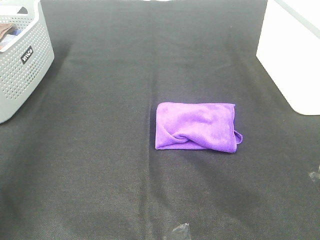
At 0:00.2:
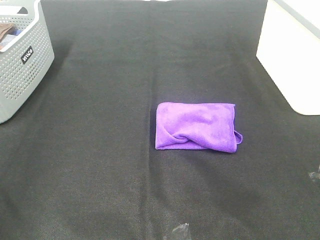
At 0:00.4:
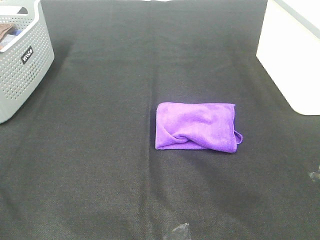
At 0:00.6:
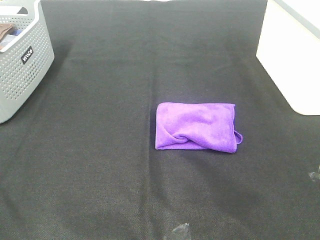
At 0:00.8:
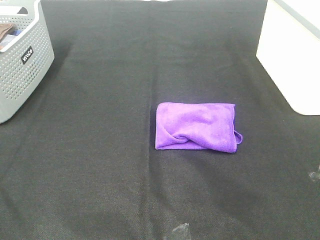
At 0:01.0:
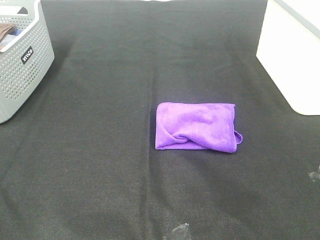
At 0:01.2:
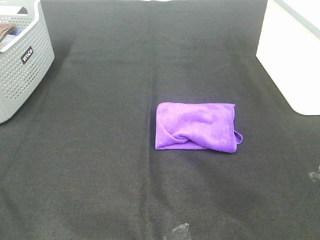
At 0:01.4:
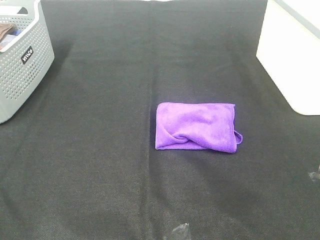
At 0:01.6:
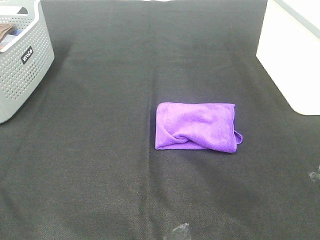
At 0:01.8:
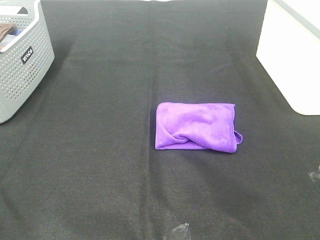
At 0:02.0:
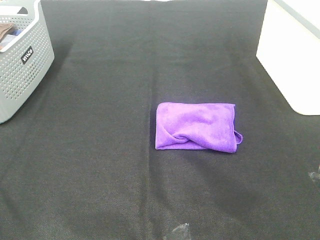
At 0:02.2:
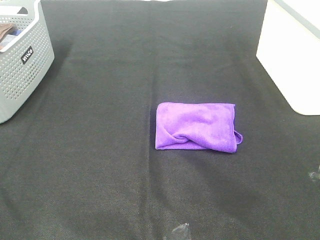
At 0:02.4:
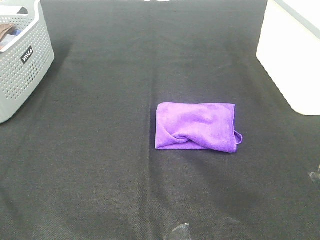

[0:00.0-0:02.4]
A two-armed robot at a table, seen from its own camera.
Task of the whole recording: Fold towels.
0:01.2 to 0:02.4: Neither gripper changes place.

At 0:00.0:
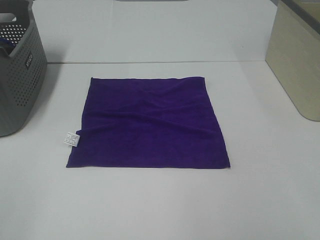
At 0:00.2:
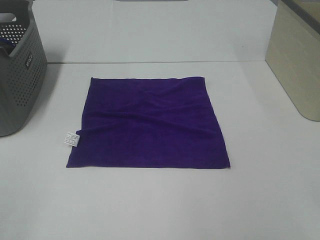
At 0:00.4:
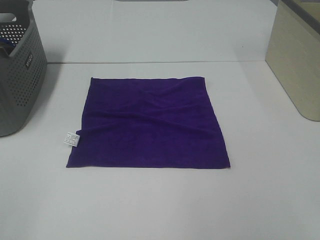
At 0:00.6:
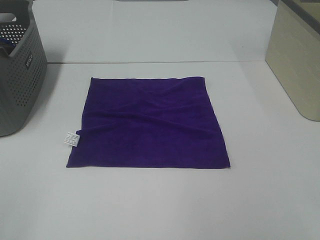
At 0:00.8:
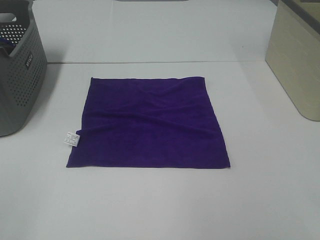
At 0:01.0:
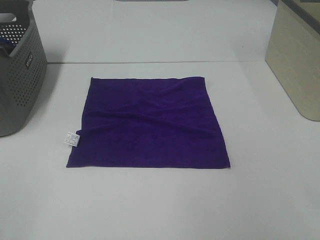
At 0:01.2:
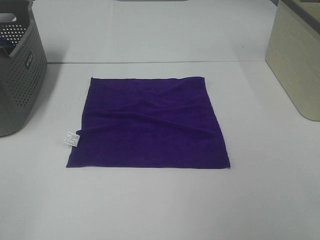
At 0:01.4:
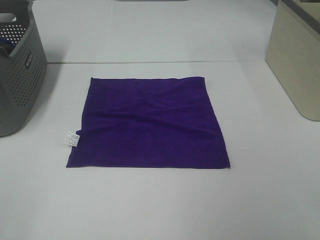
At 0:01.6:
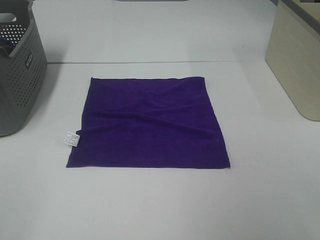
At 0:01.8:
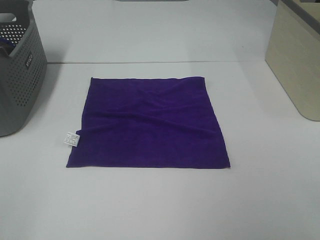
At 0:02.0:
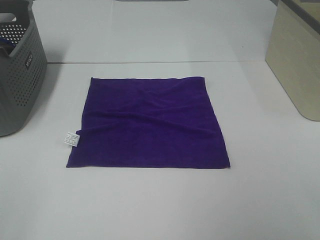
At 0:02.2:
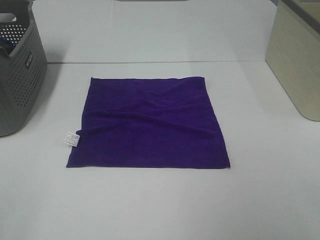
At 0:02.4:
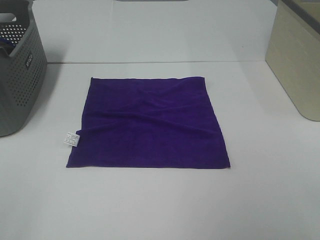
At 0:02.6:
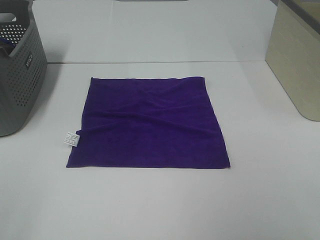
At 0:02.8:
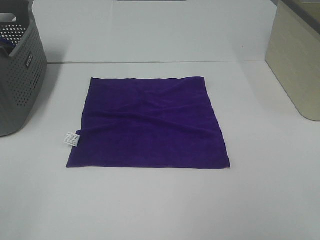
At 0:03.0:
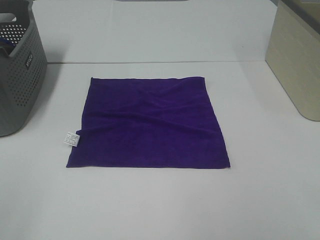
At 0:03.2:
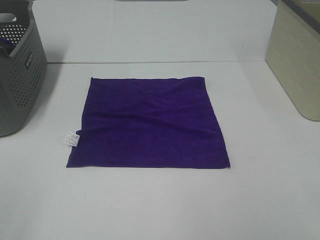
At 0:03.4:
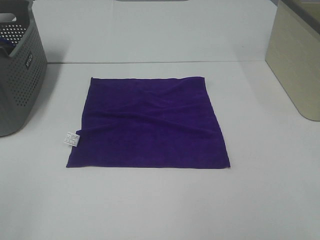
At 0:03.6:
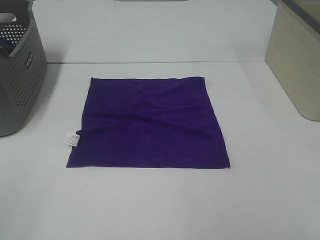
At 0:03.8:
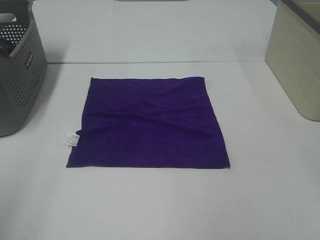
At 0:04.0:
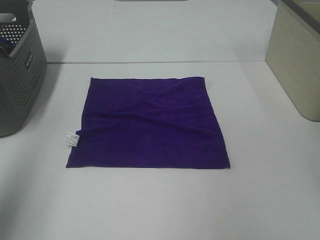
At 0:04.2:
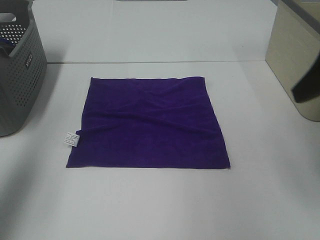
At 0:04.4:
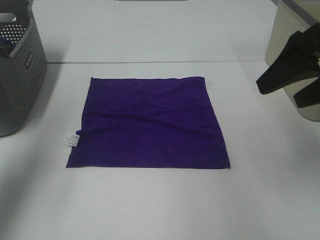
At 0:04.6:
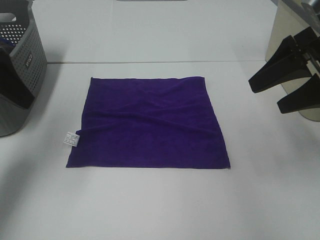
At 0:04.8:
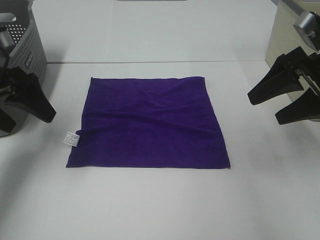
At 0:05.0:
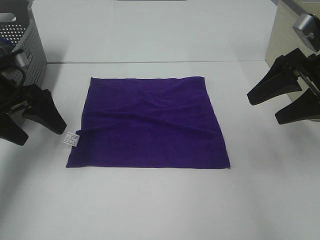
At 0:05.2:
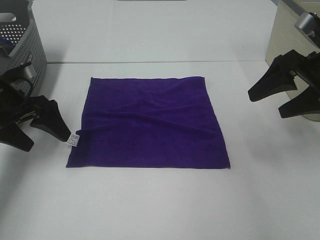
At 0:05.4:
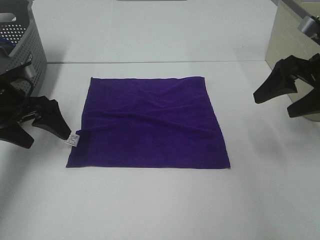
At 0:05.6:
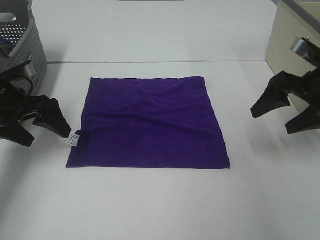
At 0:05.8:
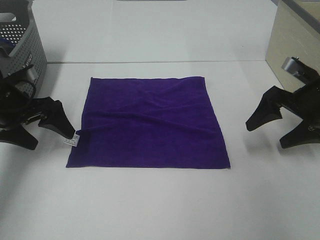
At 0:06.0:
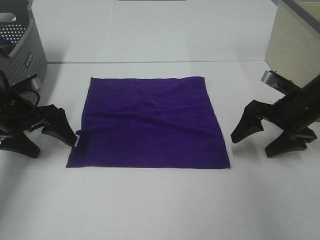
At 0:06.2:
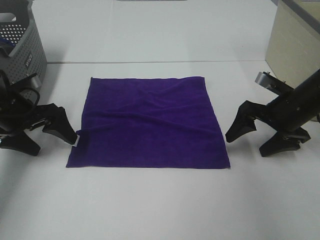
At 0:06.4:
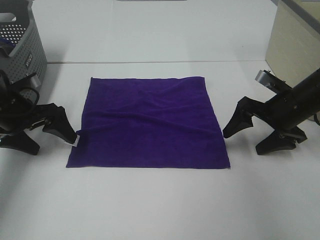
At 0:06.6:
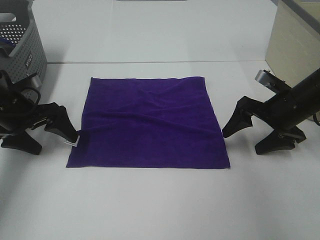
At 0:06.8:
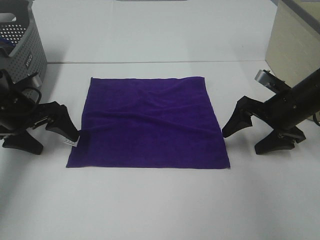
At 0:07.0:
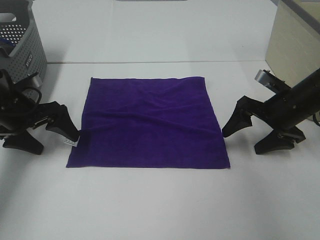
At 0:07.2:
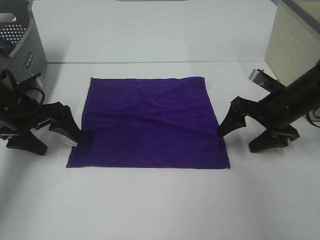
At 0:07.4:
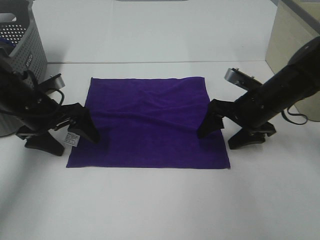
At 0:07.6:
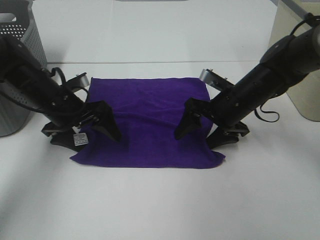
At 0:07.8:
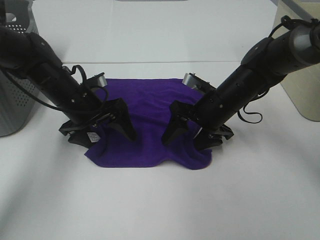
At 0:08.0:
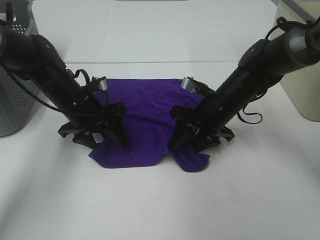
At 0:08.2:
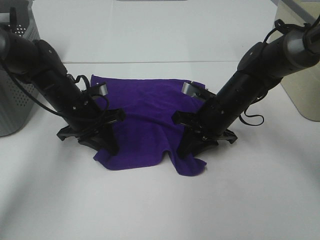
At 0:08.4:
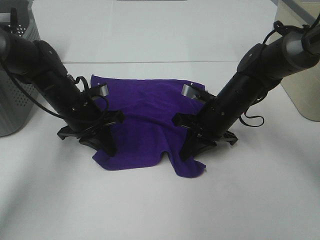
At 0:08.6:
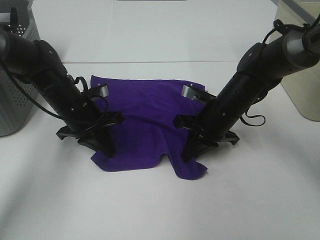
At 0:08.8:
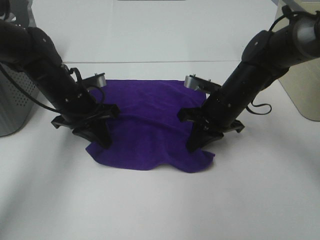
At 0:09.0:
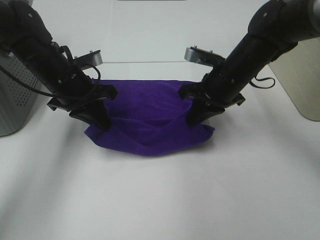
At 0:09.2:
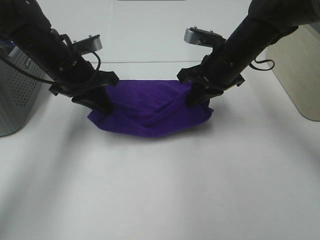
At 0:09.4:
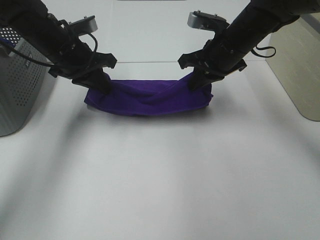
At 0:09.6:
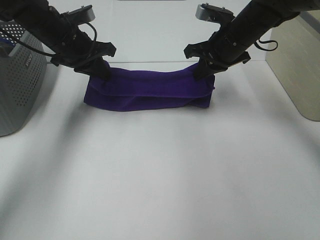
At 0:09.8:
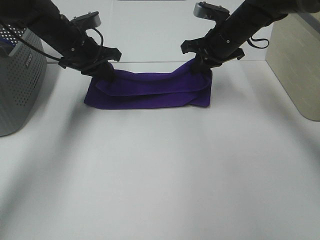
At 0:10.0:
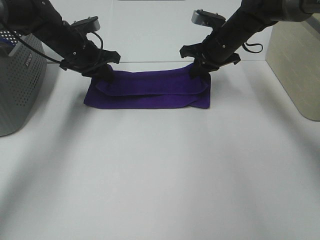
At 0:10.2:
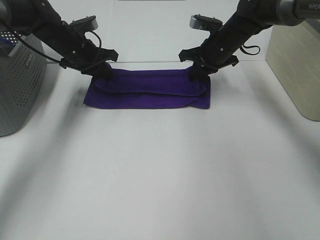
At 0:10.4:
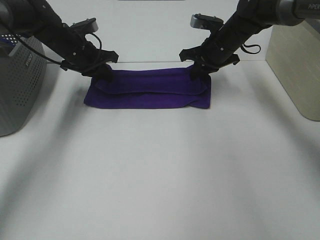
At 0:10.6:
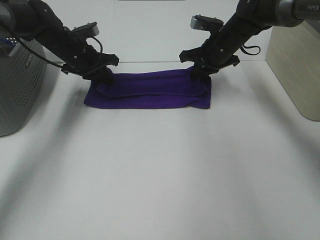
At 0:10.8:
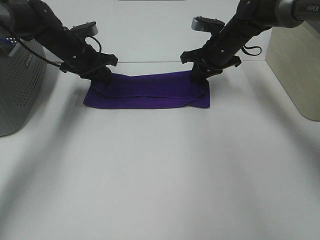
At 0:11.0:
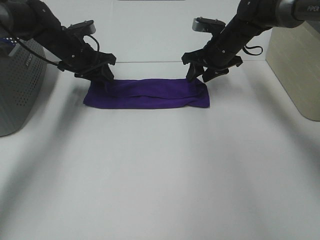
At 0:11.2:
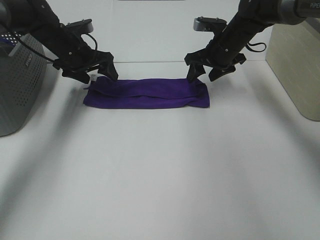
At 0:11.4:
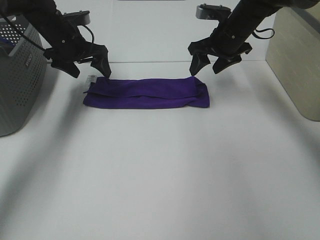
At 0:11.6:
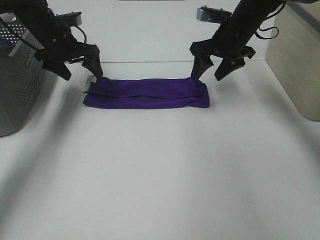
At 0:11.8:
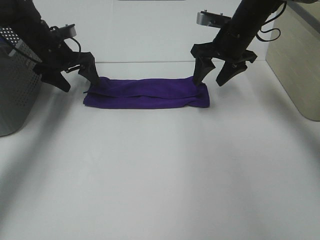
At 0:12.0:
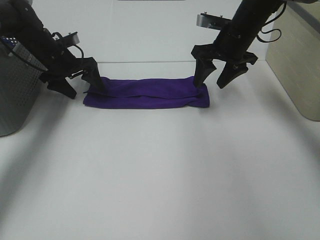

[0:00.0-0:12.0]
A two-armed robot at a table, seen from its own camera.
Task of the whole recording: Fold towels.
Step, 0:00.0 to 0:08.6: Left hand: grab the bottom left corner of purple towel.
Step, 0:00.0 to 0:08.6: Right hand: grab the bottom right corner of purple towel.
Step, 0:08.8 to 0:10.8: Left hand: fold the purple towel up.
Step, 0:08.8 to 0:10.8: Right hand: fold the purple towel up.
0:00.0 to 0:03.0: Both grippers stay put.
0:03.0 to 0:04.4: The grippers both shift forward by approximately 25 cm.
0:04.4 to 0:06.0: The two grippers go some 20 cm downward and forward.
0:06.0 to 0:07.6: The left gripper shifts some 10 cm to the right, while the right gripper shifts roughly 10 cm to the left.
0:07.6 to 0:09.0: Both grippers move upward, some 5 cm. The left gripper closes. The right gripper closes its fingers.
0:09.0 to 0:10.4: The grippers both shift forward by some 15 cm.
0:10.4 to 0:12.0: The left gripper heads to the left, covering approximately 5 cm, and opens its fingers, while the right gripper ends up approximately 5 cm from where it was, and opens.

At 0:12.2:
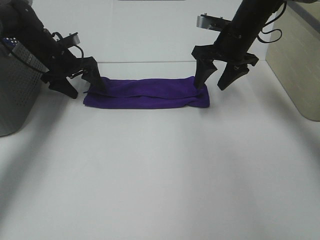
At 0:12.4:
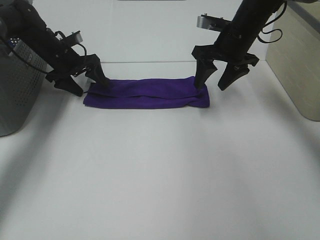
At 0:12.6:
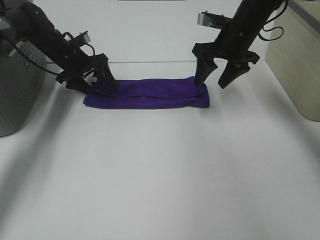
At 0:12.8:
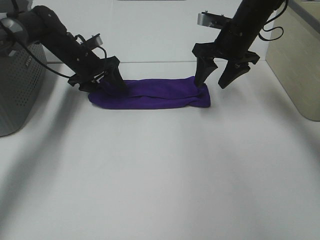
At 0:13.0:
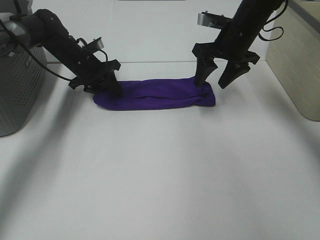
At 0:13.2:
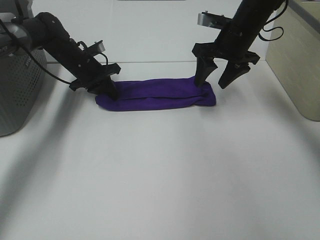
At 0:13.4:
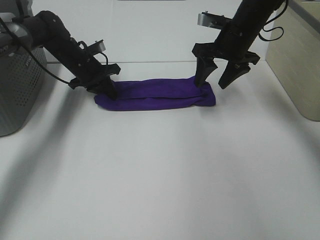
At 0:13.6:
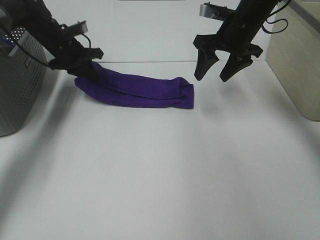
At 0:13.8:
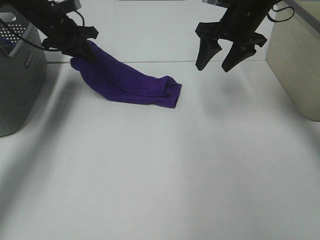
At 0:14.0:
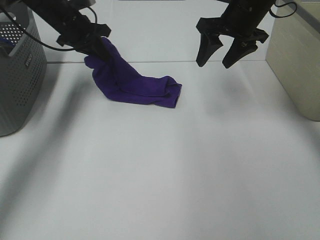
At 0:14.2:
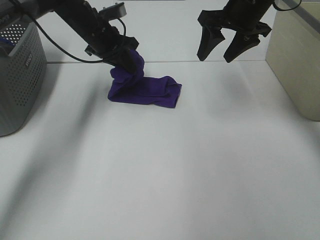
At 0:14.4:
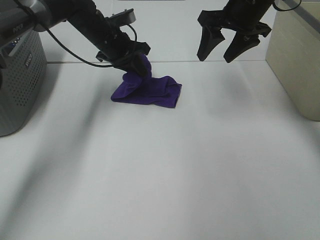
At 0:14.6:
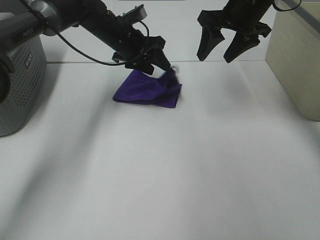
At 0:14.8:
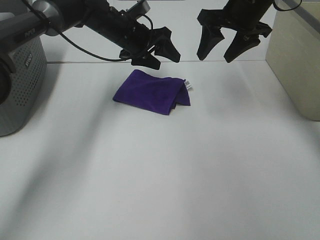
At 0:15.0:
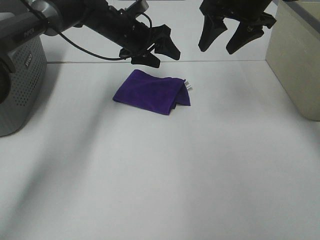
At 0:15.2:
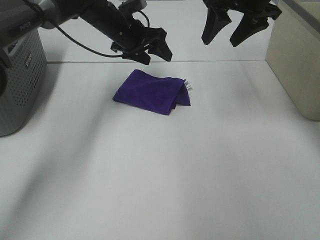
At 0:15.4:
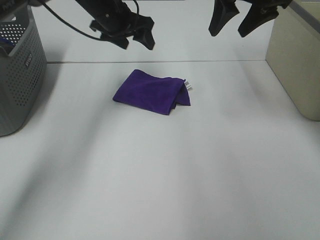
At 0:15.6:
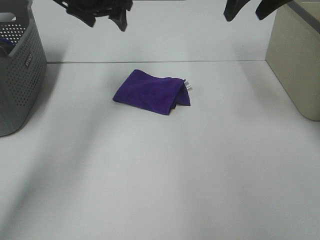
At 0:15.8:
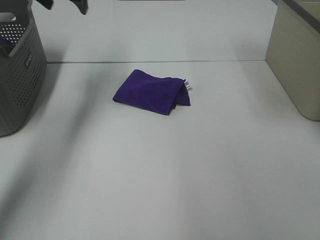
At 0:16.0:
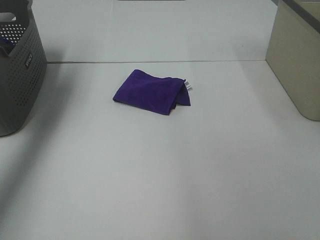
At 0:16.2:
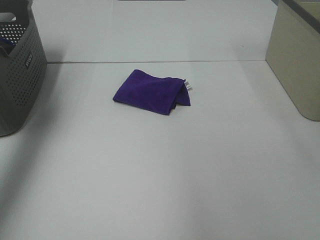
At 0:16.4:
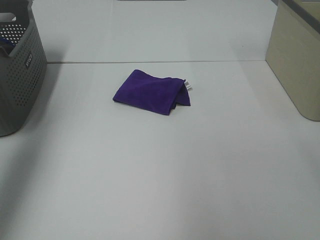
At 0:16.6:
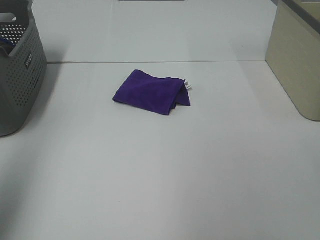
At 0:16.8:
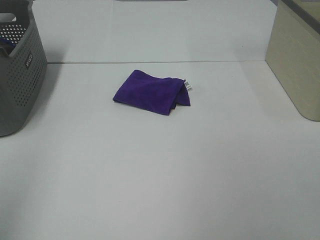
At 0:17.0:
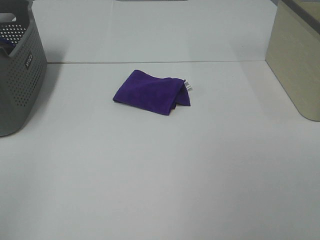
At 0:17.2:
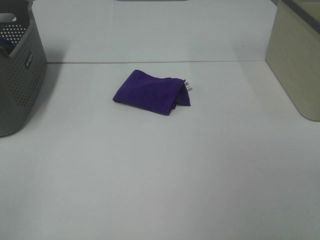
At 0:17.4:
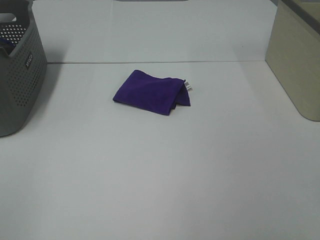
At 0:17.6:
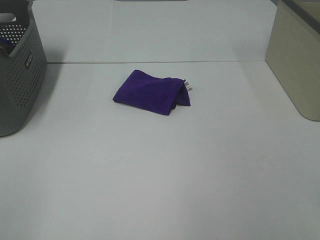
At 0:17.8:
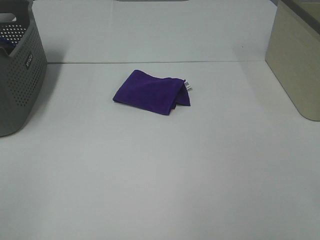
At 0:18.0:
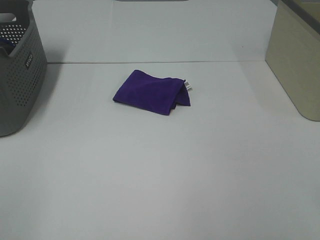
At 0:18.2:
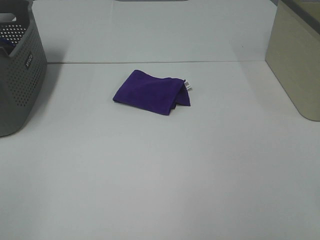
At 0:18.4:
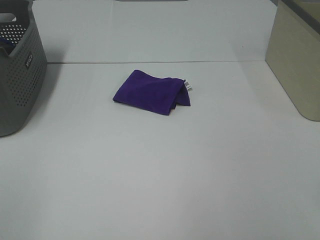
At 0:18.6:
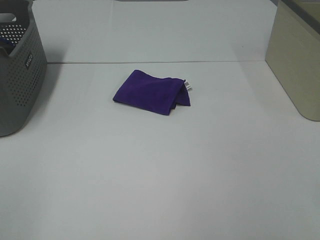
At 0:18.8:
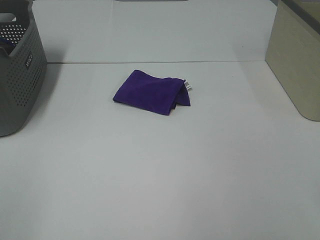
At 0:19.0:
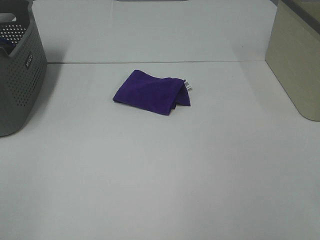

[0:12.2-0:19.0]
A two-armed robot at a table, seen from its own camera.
Task of the whole recording: Fold towels.
Step, 0:12.2 to 0:14.6: Left hand: fold the purple towel from left to right.
0:12.2 to 0:13.6: The left gripper closes its fingers.
0:13.6 to 0:15.0: The right gripper shifts about 5 cm upward, while the left gripper travels to the right by some 15 cm, and opens.
0:15.0 to 0:16.2: The right gripper shifts about 25 cm backward, upward and to the right. Meanwhile the left gripper goes about 35 cm to the left, upward and backward.
0:16.2 to 0:17.6: The left gripper travels backward by some 35 cm.
0:17.6 to 0:19.0: Neither gripper changes place.
